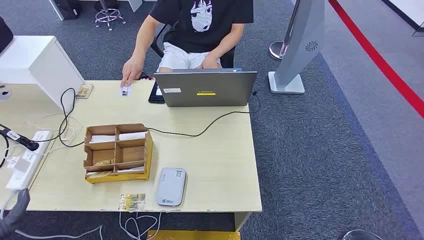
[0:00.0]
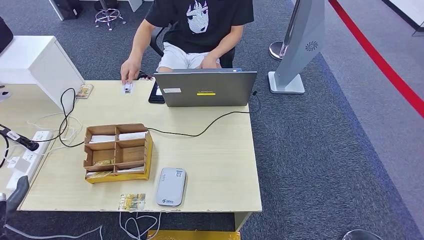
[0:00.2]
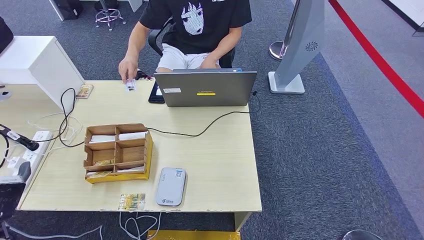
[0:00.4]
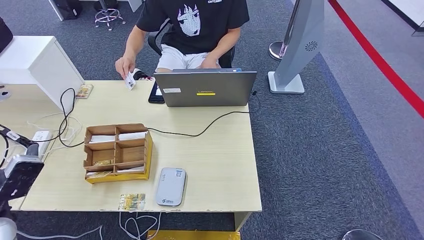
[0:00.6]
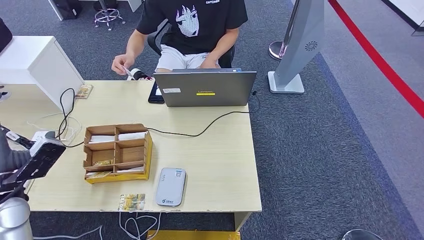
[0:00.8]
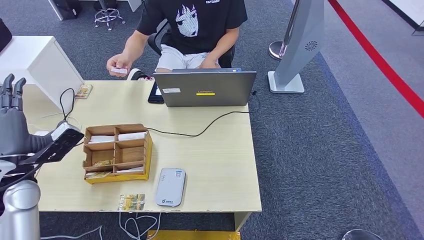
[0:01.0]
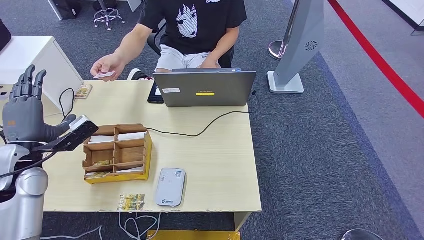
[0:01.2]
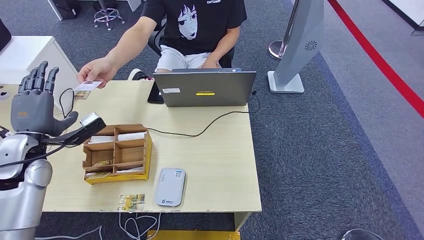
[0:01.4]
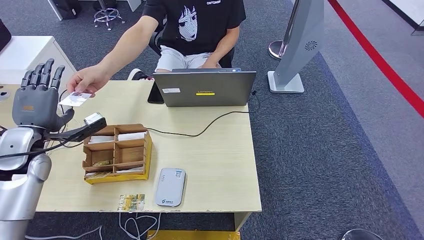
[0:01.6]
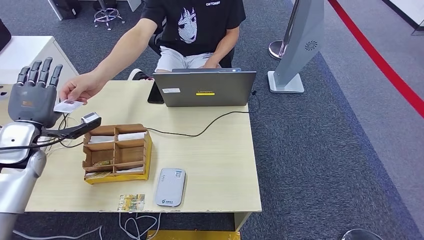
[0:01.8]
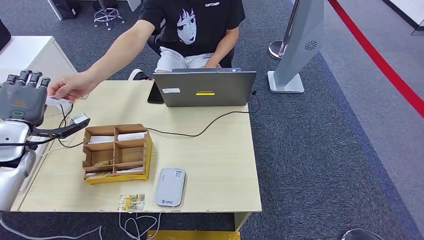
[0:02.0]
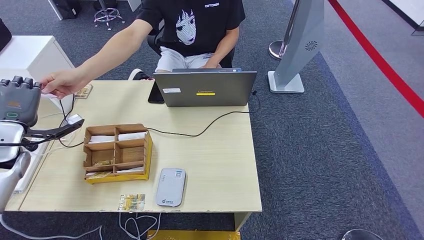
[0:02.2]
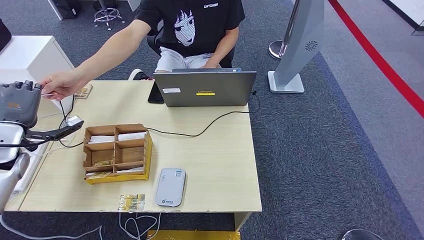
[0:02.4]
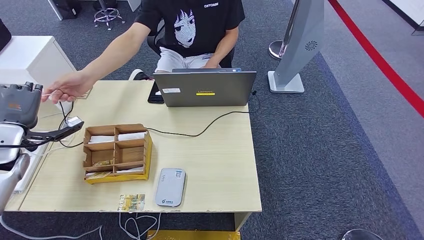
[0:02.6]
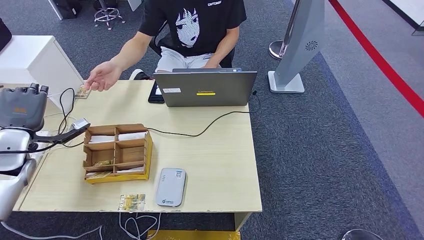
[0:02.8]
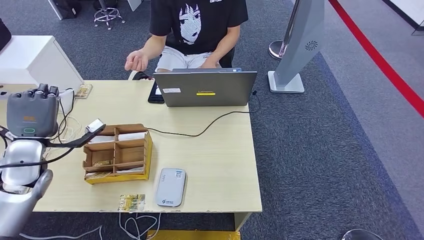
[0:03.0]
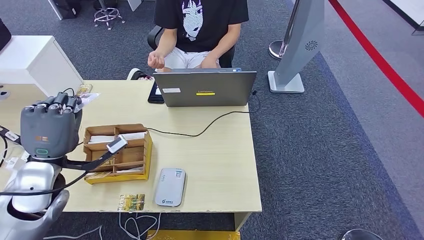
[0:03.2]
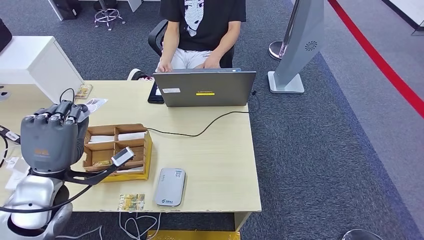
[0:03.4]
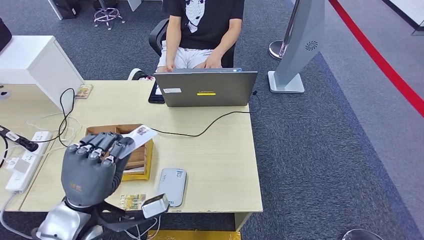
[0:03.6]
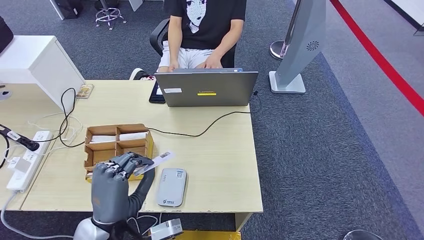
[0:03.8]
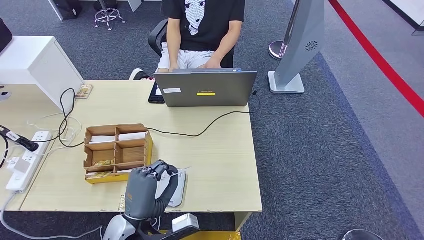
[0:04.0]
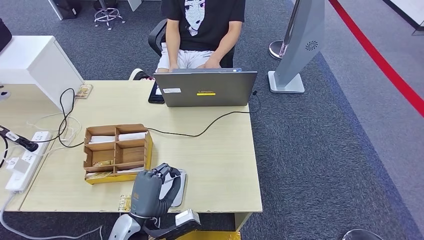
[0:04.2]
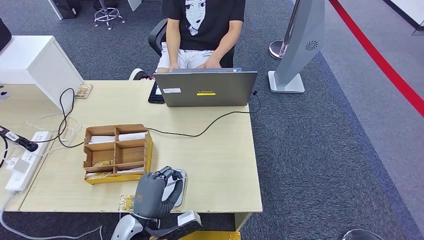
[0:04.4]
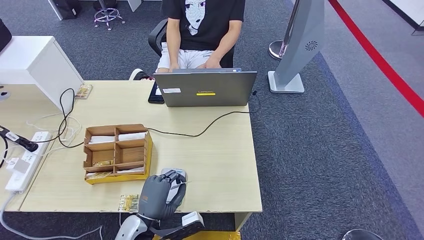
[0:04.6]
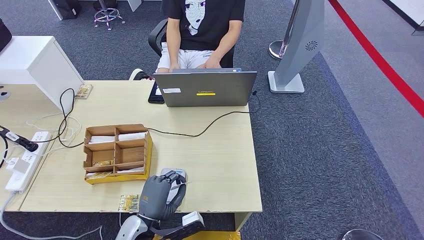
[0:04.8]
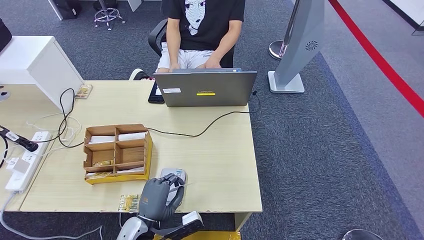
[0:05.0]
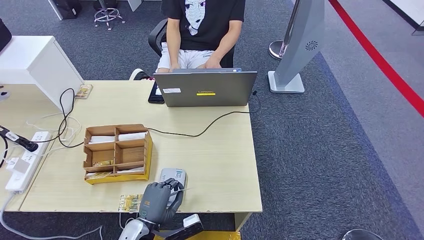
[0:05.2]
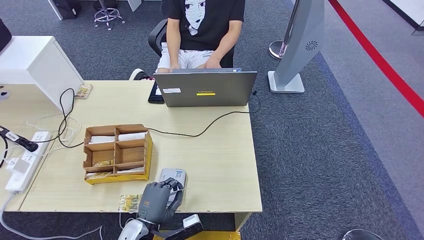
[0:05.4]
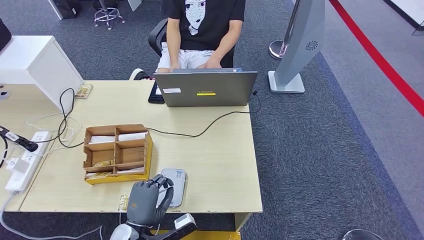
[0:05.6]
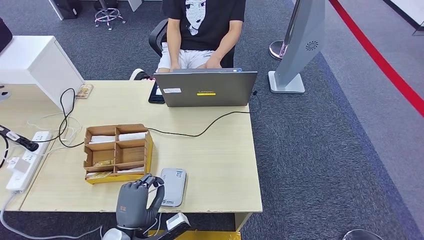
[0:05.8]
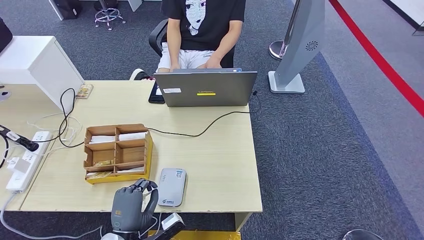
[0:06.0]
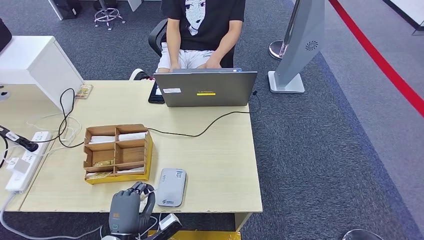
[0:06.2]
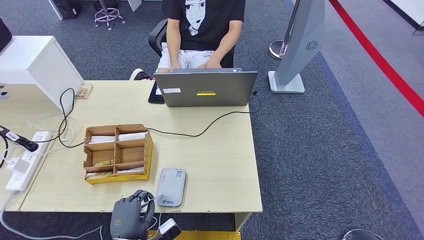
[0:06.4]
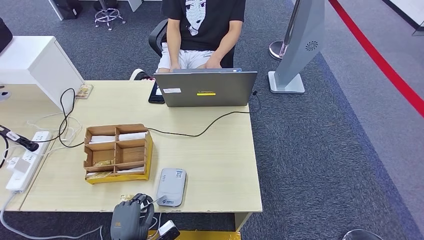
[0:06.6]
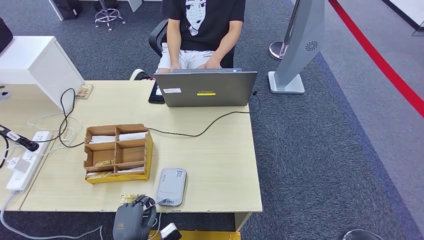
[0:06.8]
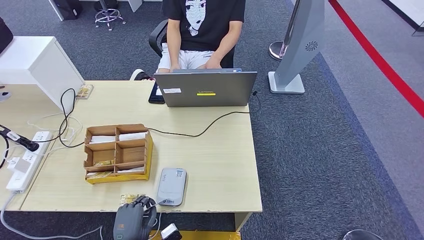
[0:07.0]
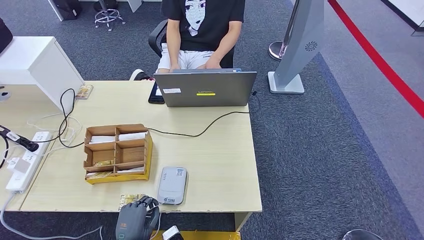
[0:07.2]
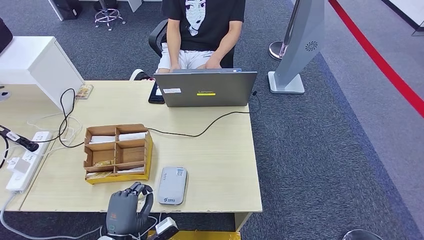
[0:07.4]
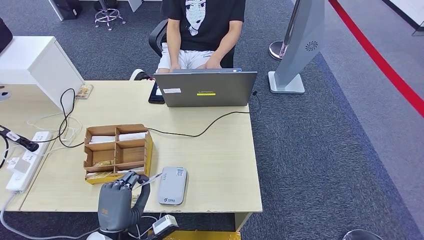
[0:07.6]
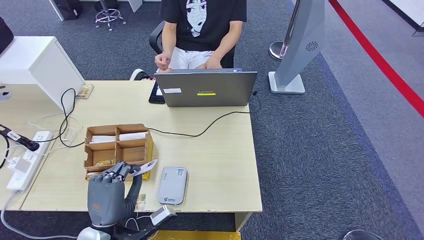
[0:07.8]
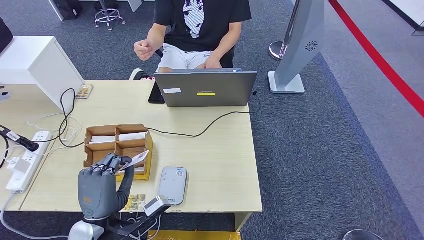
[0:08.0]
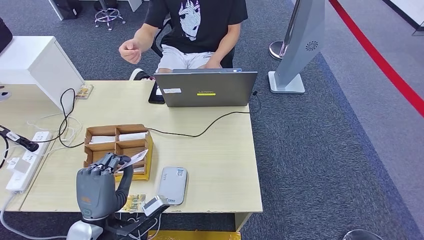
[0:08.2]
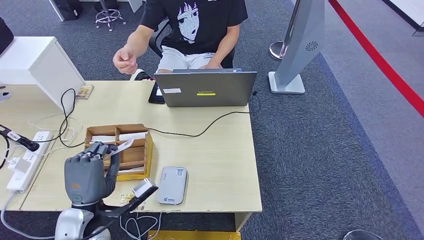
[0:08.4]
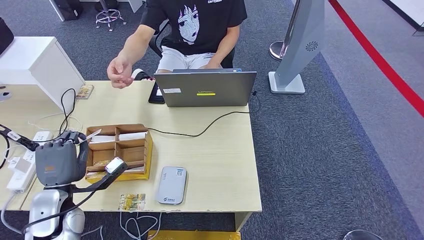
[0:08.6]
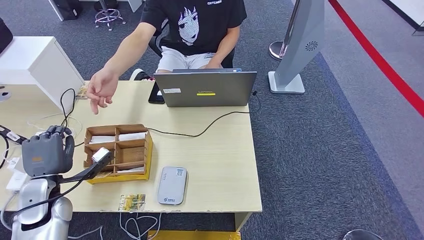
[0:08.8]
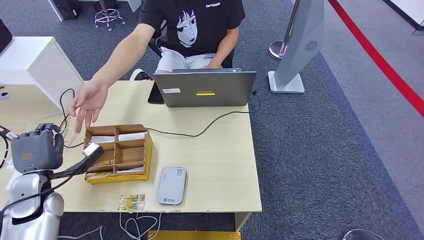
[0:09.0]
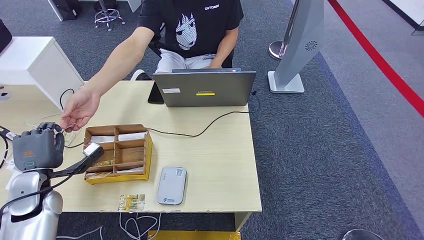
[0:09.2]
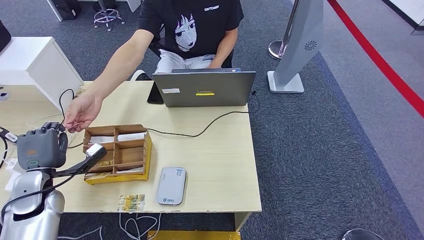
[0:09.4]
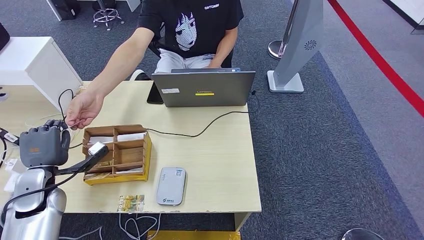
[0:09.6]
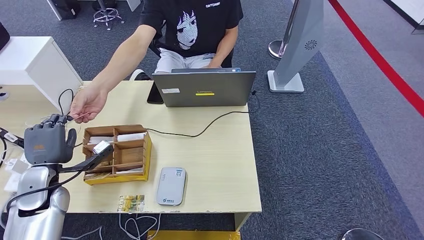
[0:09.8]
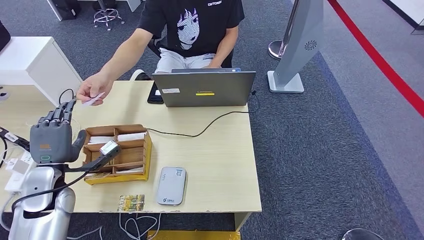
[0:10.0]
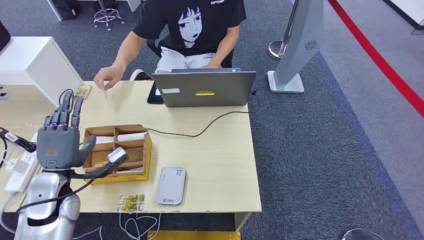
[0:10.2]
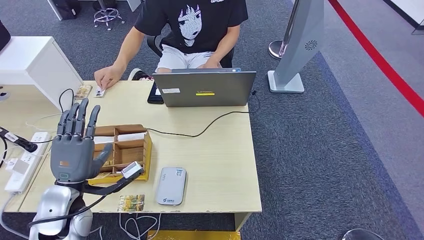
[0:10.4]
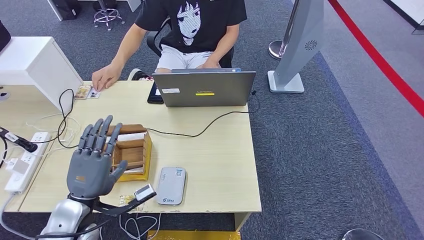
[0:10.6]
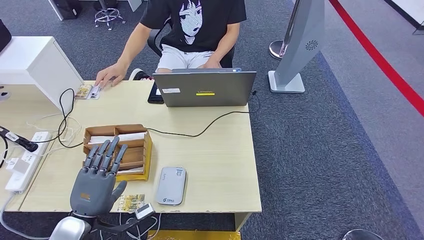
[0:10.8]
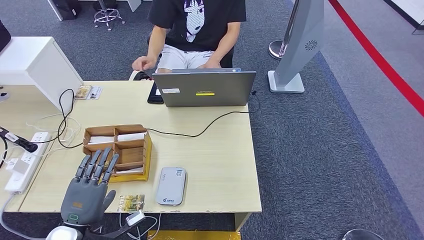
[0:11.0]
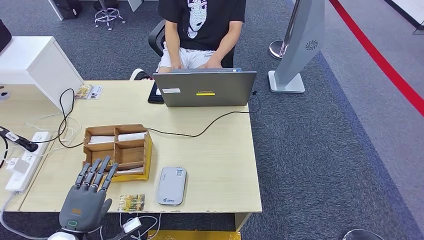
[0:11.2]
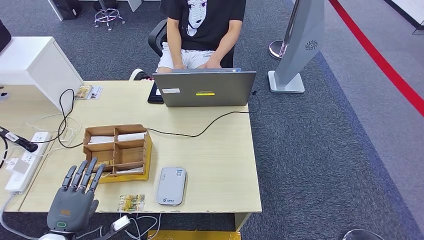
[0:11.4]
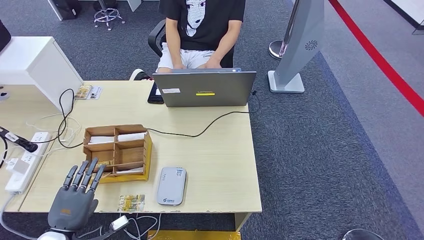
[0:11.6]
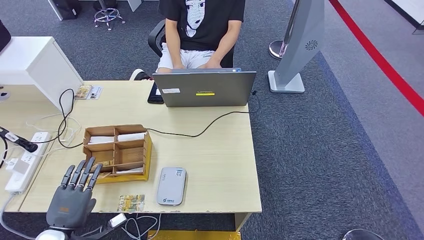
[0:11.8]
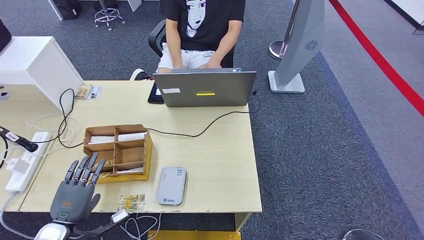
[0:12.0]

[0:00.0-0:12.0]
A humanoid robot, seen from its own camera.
Step, 0.0 to 3.0 s: Take the ID card from the person's hand.
Step, 3.2 to 6.0 s: Place the ID card on the card reader.
Step, 6.2 to 10.2 s: Hand the ID card to the person.
3.0 to 4.4 s: The left hand goes approximately 30 cm to the right, backward and downward.
4.4 to 6.0 s: The left hand shifts by roughly 5 cm.
6.0 to 7.6 s: The left hand reaches some 5 cm downward, then returns.
7.6 to 9.0 s: The left hand shifts roughly 20 cm to the left and forward.
9.0 to 10.4 s: The left hand moves to the right, some 10 cm.
10.4 to 12.0 s: The left hand heads downward, to the left and backward, covering some 15 cm.

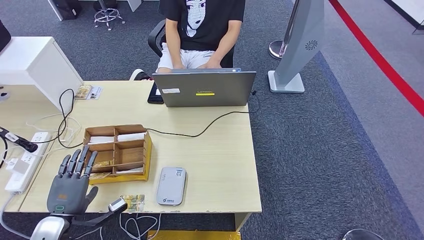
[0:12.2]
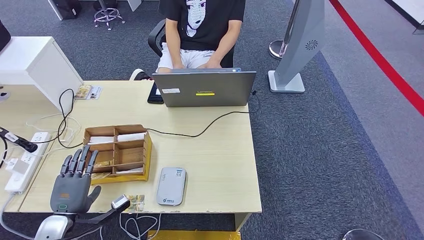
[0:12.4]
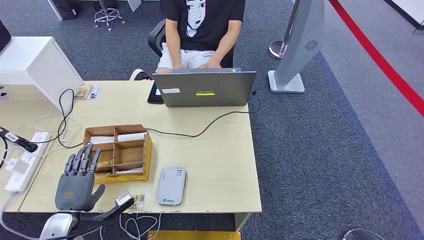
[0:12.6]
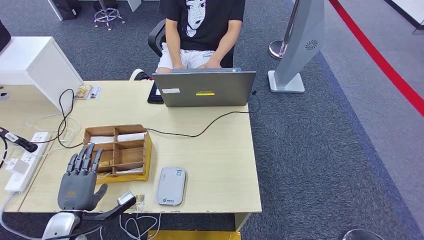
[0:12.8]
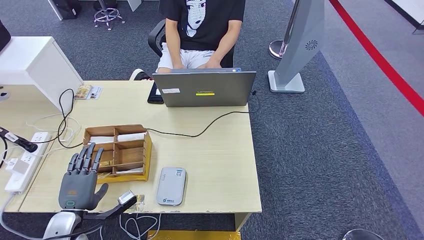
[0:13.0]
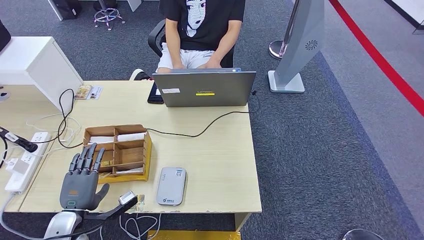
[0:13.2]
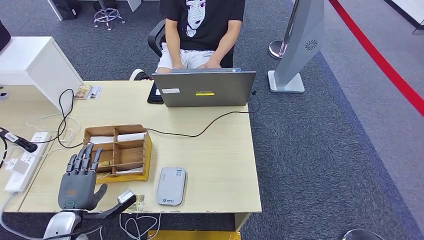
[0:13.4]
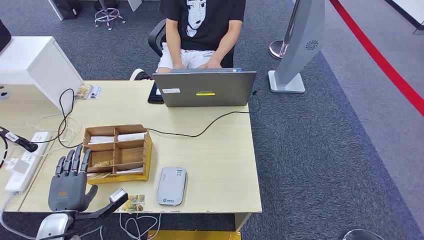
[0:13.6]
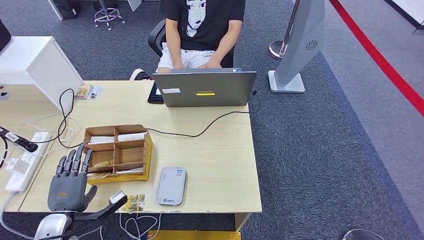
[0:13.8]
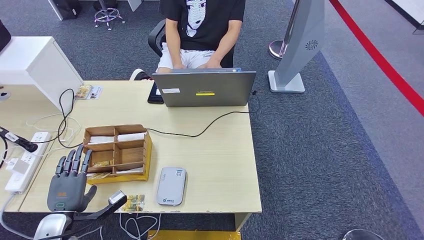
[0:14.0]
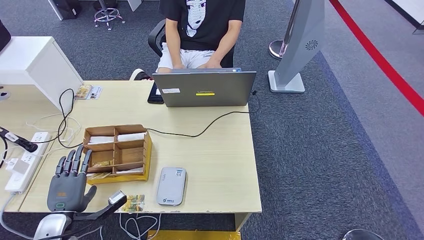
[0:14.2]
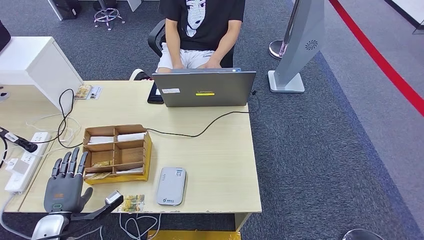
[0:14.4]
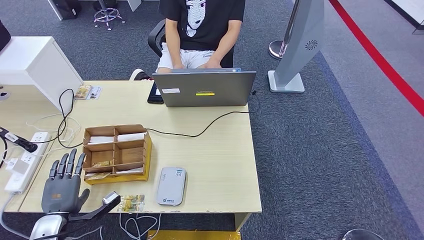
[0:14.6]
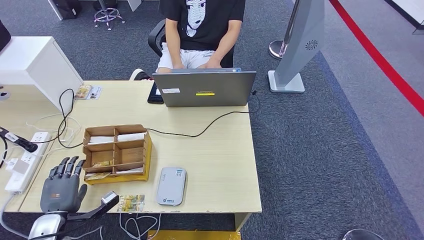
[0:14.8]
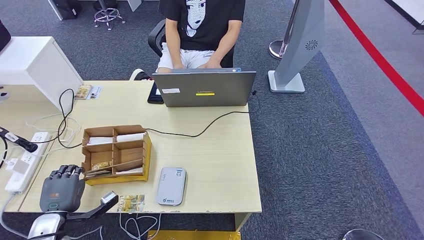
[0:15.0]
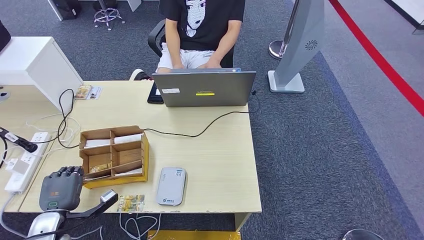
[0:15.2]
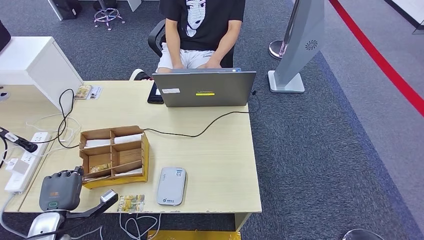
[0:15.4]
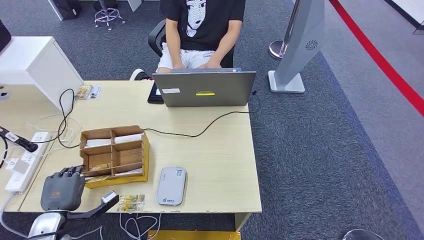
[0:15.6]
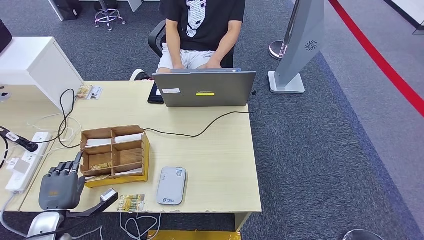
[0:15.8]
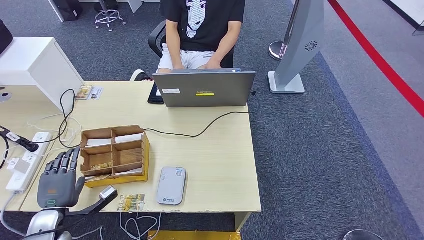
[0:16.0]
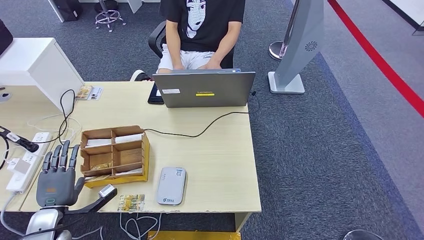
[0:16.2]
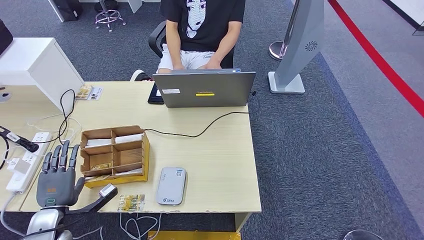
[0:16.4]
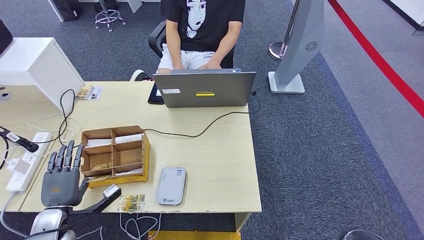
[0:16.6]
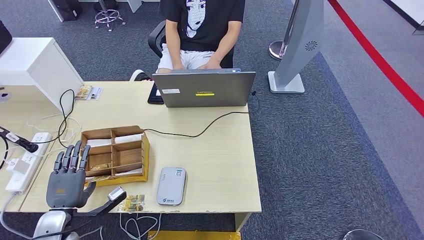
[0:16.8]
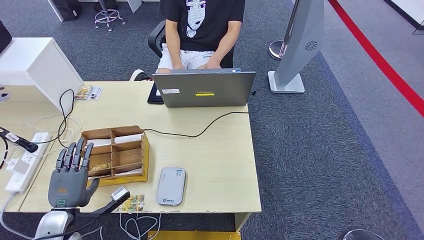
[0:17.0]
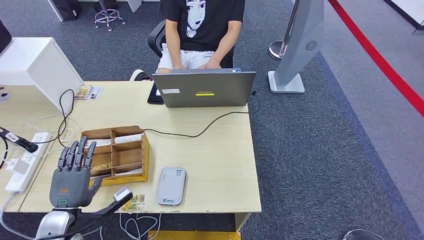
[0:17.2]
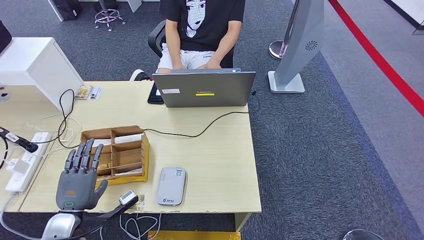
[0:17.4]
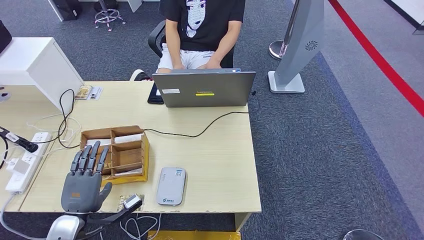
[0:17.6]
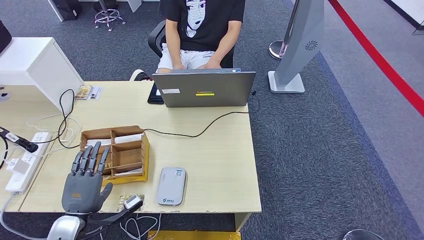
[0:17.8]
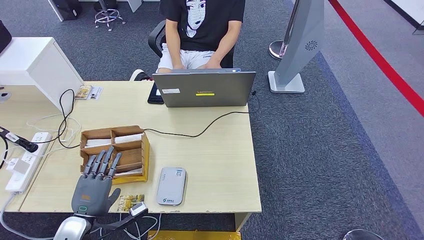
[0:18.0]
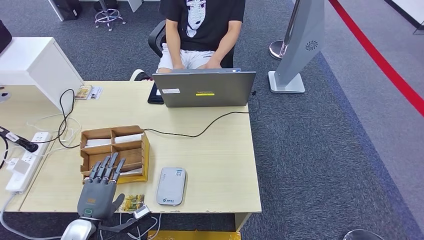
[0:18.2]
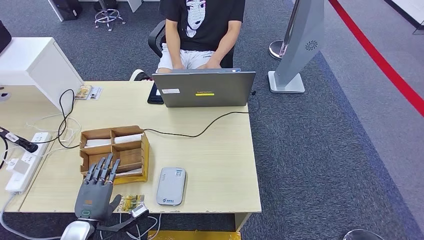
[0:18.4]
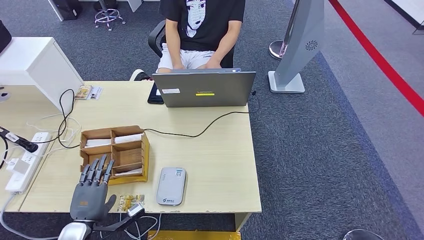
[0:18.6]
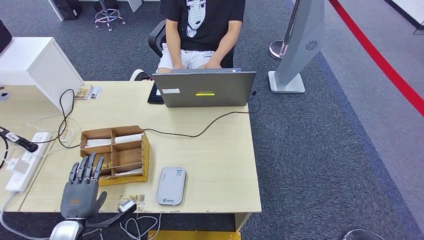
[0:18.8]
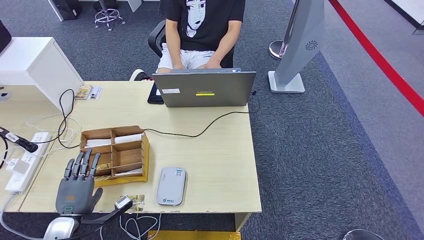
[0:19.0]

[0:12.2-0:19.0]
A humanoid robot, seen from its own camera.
12.2 to 15.0 s: The hands move only a little.
15.0 to 16.2 s: Neither hand changes place.
16.2 to 17.6 s: The left hand goes approximately 5 cm to the right.
17.6 to 19.0 s: The left hand ends up some 5 cm from where it was.
